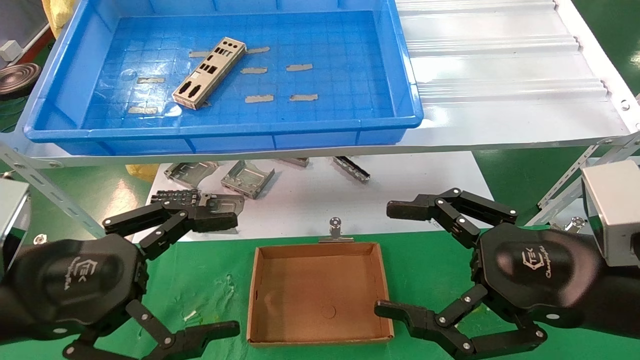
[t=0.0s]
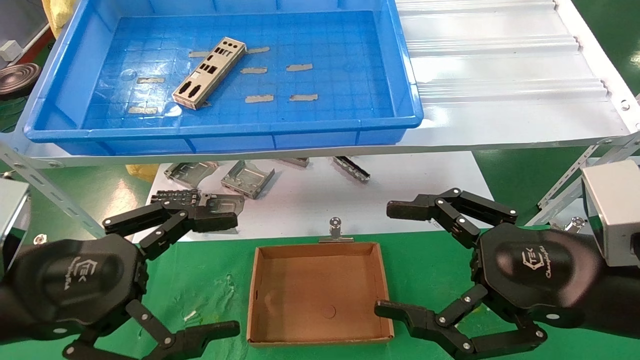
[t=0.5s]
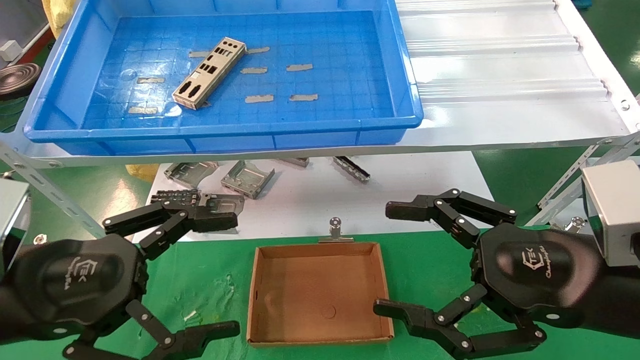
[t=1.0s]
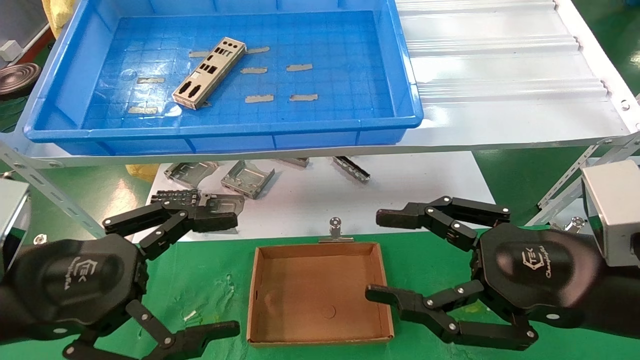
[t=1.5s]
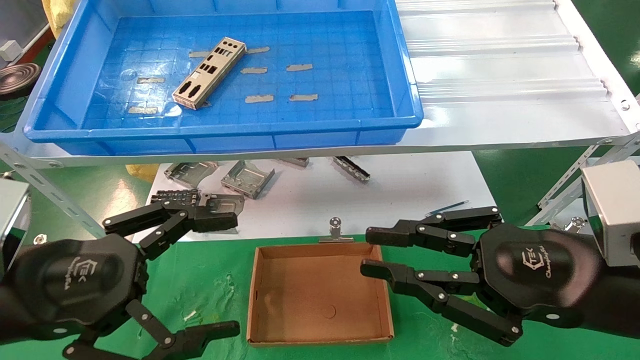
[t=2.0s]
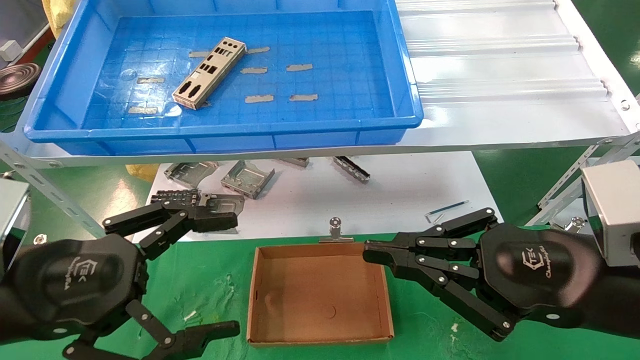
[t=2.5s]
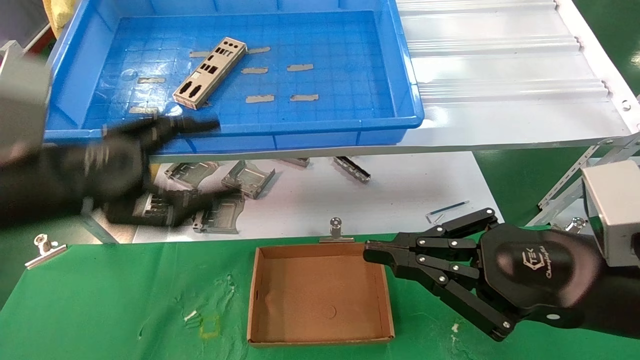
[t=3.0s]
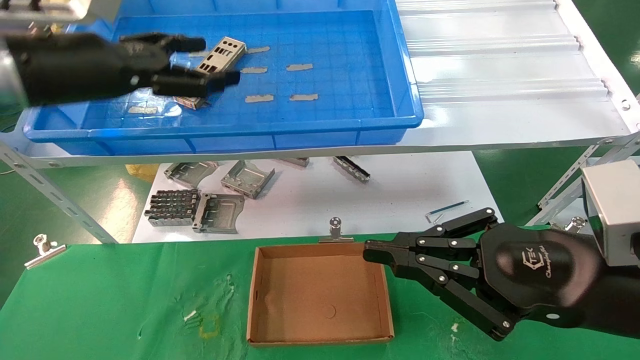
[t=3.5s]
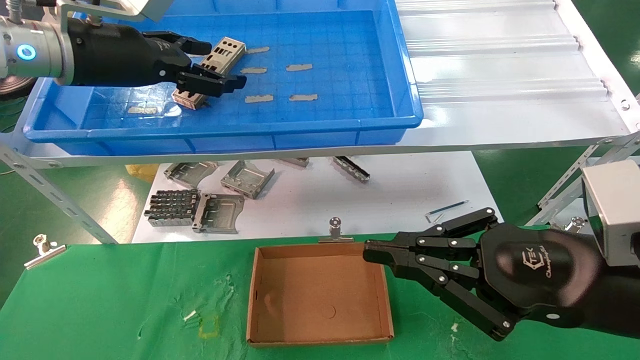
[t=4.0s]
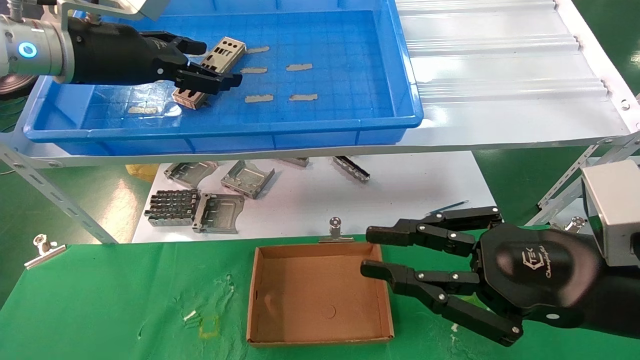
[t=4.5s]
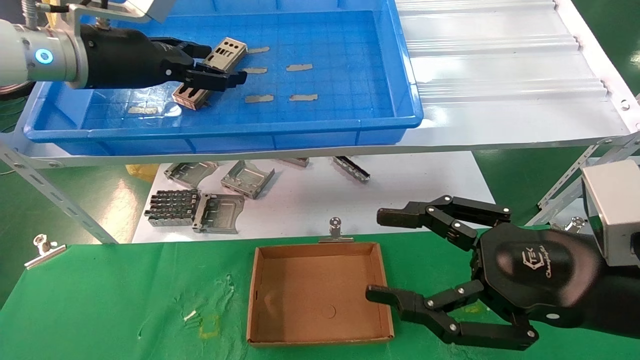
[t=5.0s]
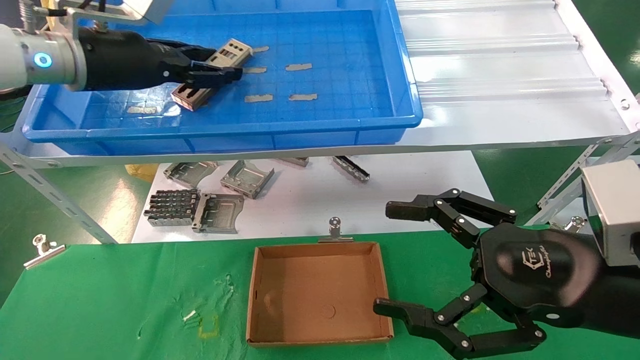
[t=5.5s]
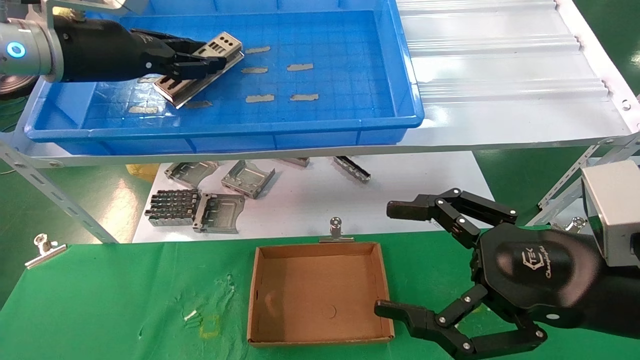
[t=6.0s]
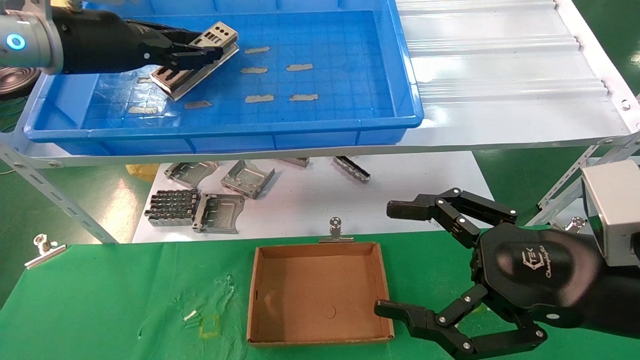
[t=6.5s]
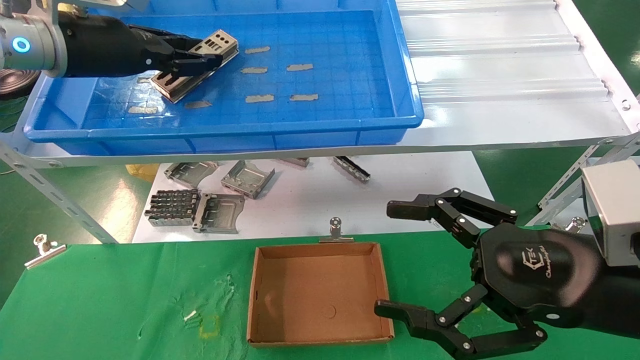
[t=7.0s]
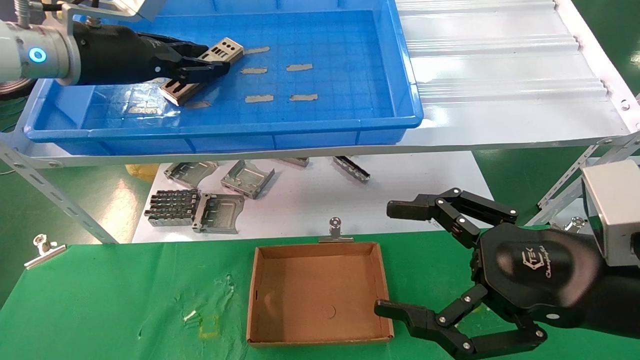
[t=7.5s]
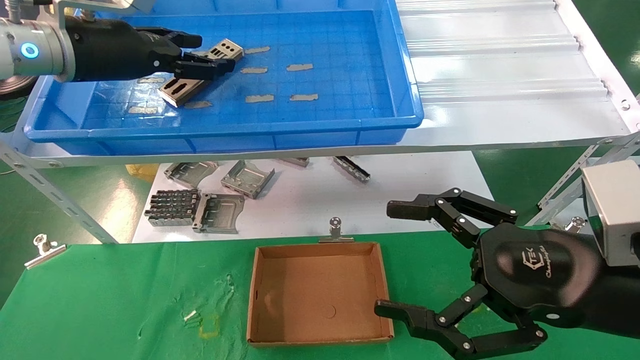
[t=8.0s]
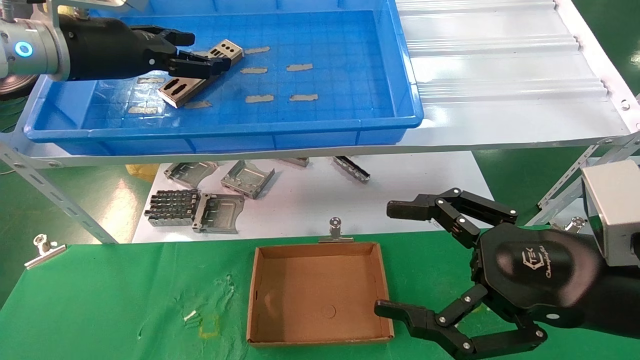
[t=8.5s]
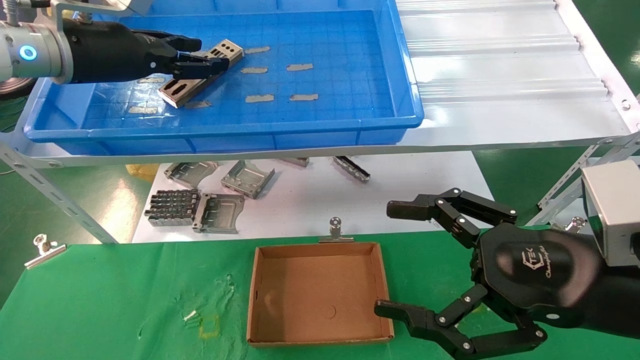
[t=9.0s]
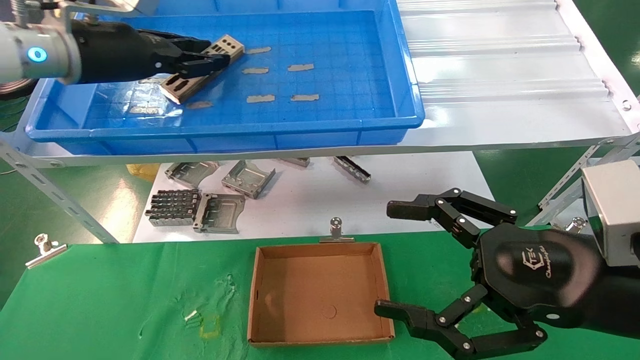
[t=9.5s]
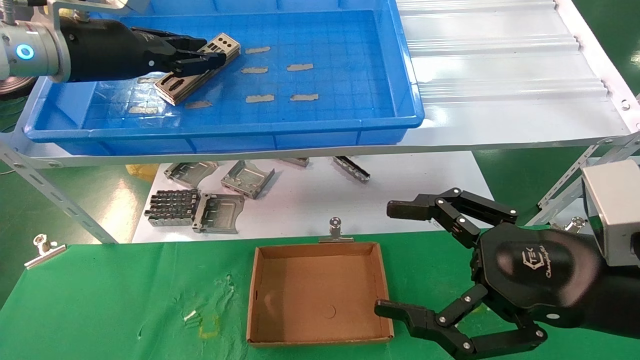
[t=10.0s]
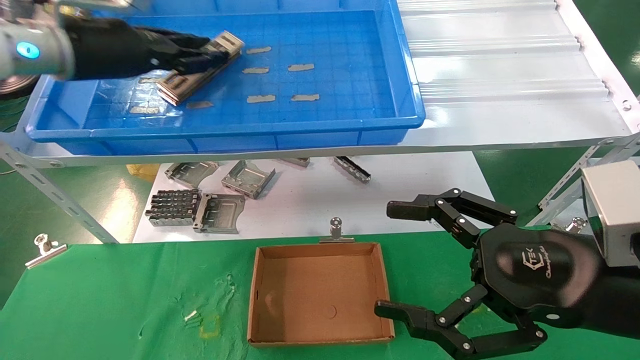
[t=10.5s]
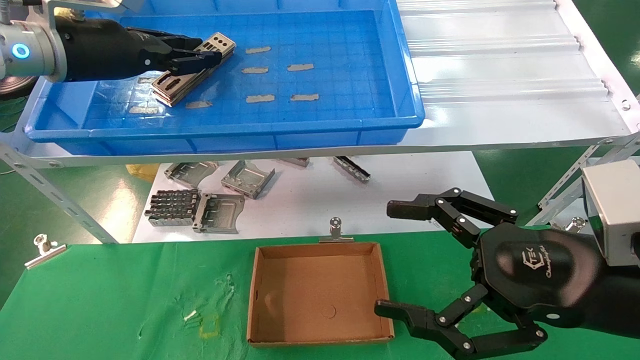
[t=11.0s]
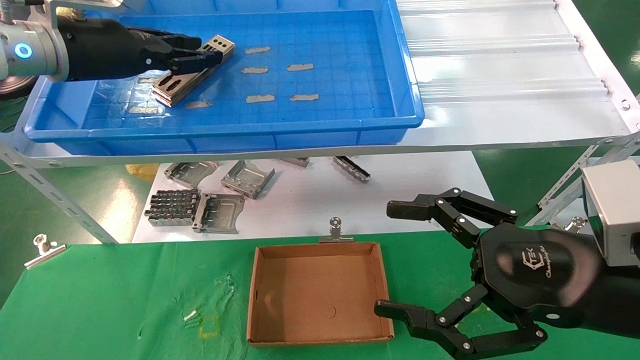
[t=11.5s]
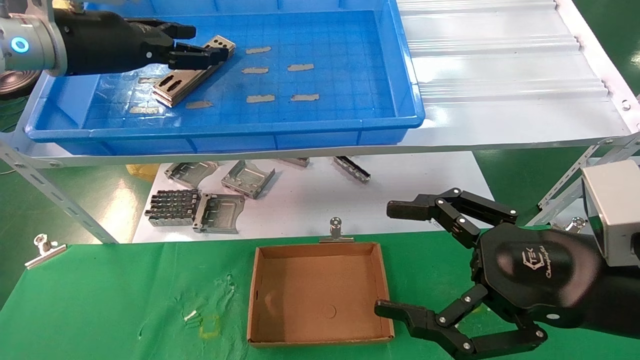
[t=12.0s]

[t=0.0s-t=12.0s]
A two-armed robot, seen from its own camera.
Task of the whole recording: pick up the parts on the tray and put them in the cardboard box.
t=0.0s to t=2.0s: The right gripper closes.
t=2.0s to t=4.0s: The left gripper goes about 25 cm forward and upward.
t=4.0s to t=6.0s: The left gripper closes, while the right gripper opens its fingers.
t=6.0s to t=8.0s: The left gripper opens up.
t=8.0s to t=10.0s: The left gripper closes its fingers.
t=10.0s to t=12.0s: The left gripper opens up.

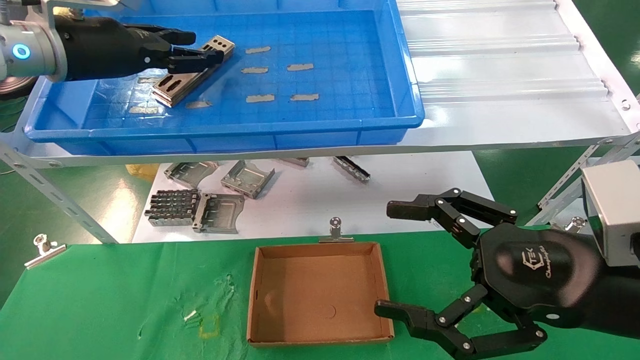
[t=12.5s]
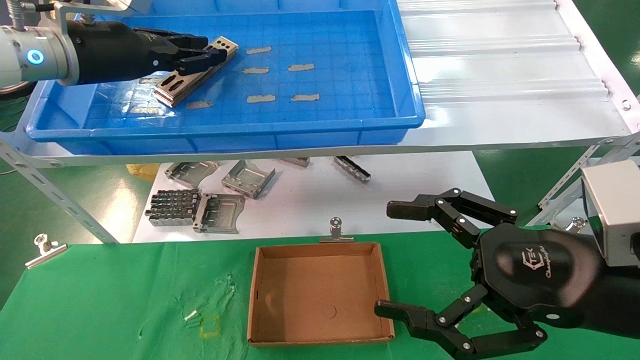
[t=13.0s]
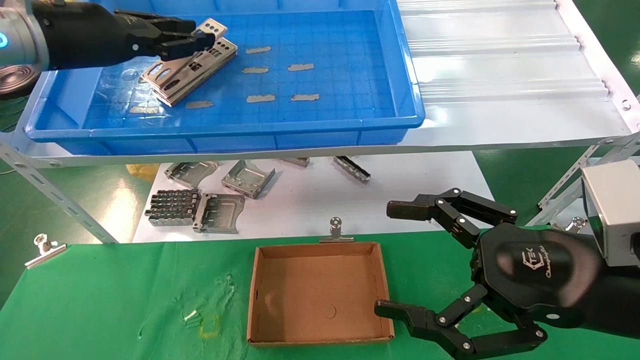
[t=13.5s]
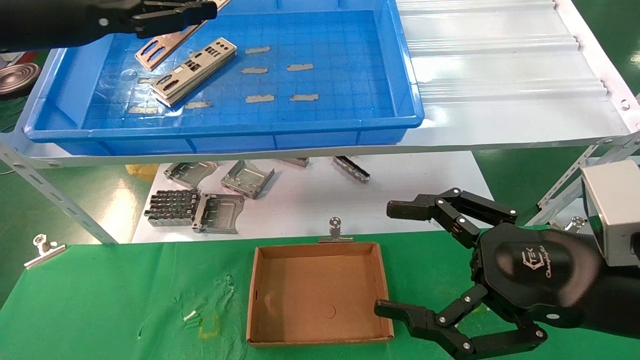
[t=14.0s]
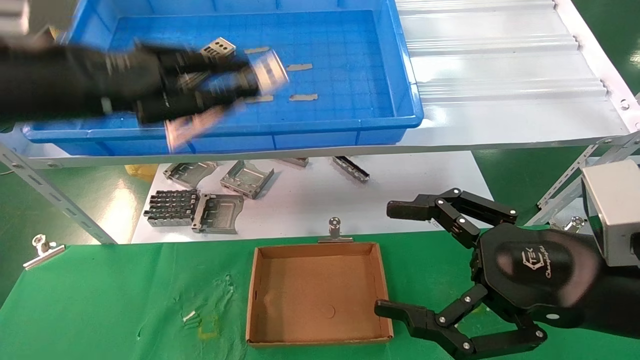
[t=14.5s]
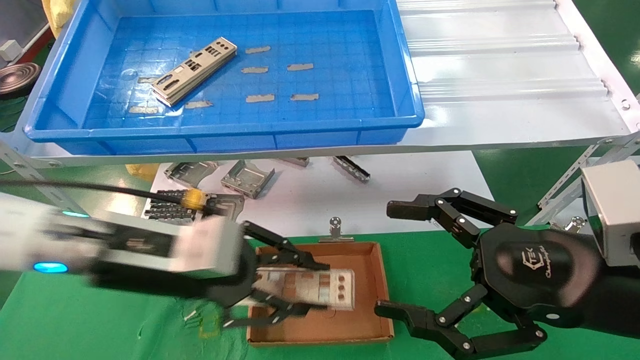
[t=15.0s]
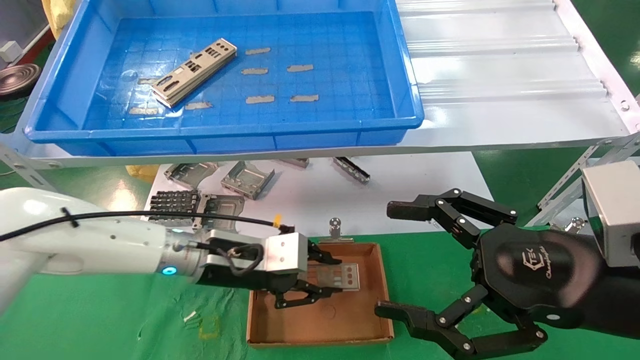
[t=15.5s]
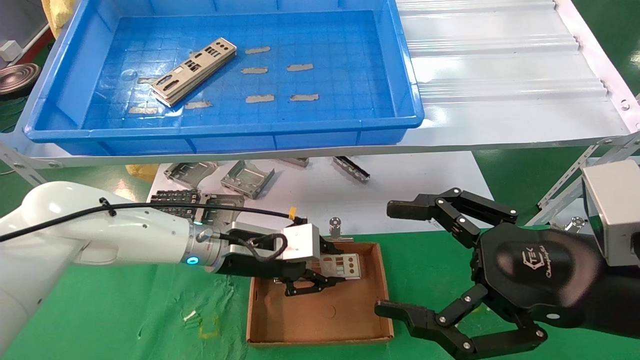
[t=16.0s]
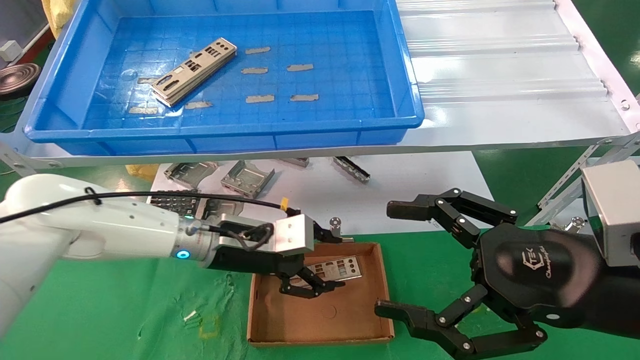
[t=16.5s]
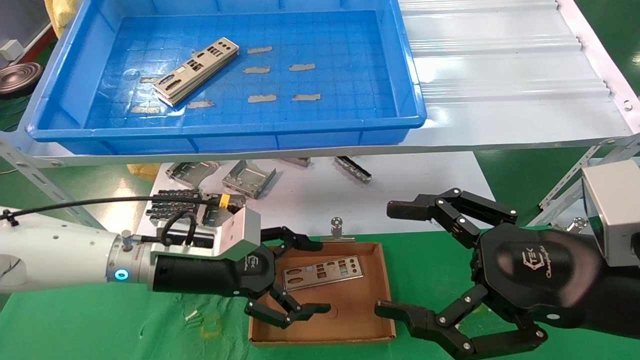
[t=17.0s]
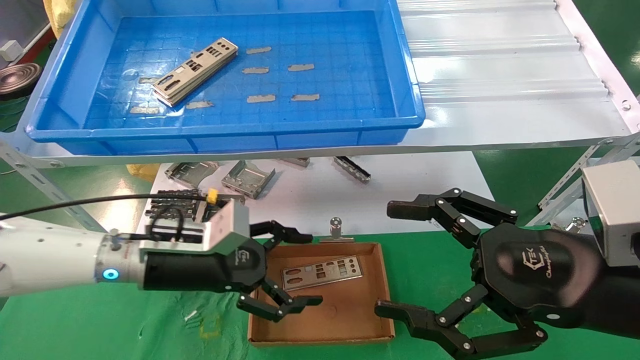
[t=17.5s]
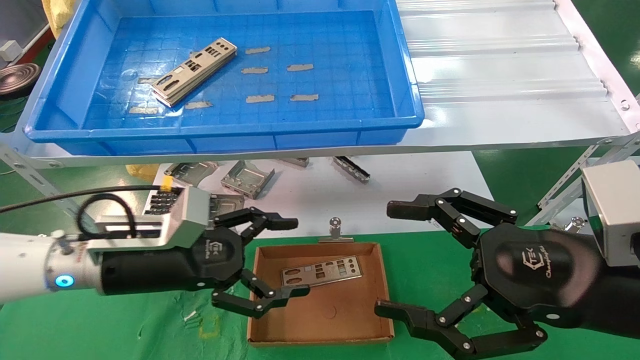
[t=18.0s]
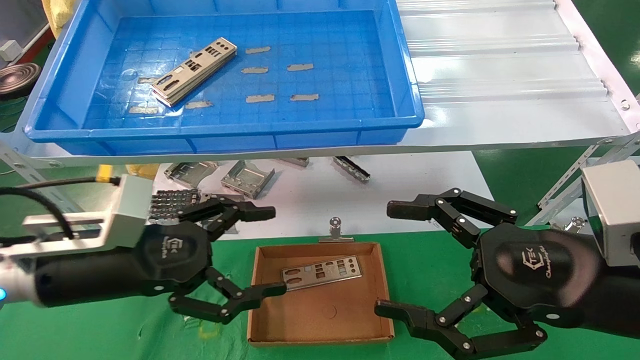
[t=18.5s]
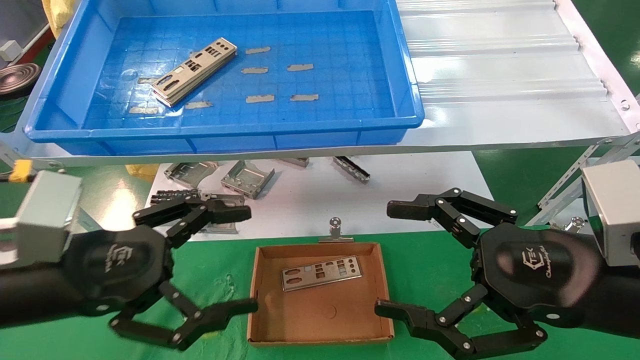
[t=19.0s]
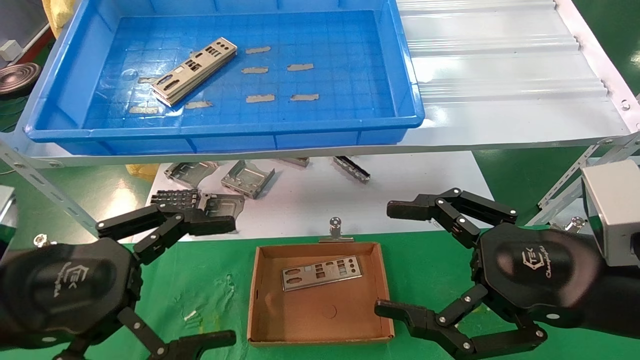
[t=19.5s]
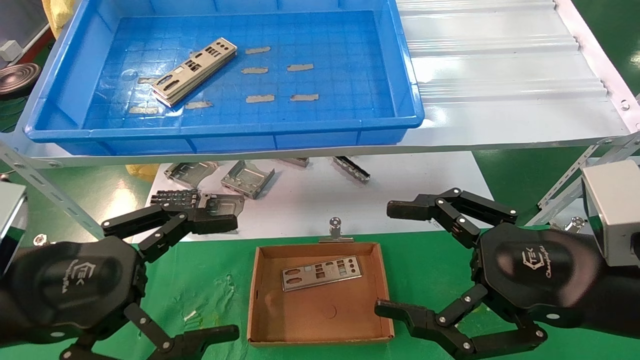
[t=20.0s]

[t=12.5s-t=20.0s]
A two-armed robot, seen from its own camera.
Task of the whole recording: pick up the parts on the tray and put them in the cardboard box.
Step, t=13.5s to t=16.0s: Place the IO bracket into the ingredient slot.
t=12.5s to t=14.5s: The left gripper shifts some 15 cm backward, and closes up.
t=14.5s to t=16.5s: The left gripper travels downward, to the right and forward by roughly 30 cm, and opens its fingers.
t=16.5s to t=18.0s: The left gripper goes some 10 cm to the left and backward, and opens its fingers.
t=18.0s to t=20.0s: The left gripper travels backward and to the left by approximately 15 cm.
